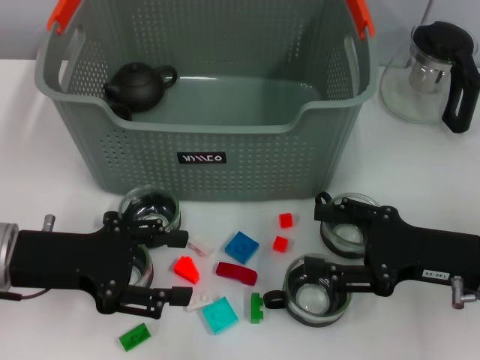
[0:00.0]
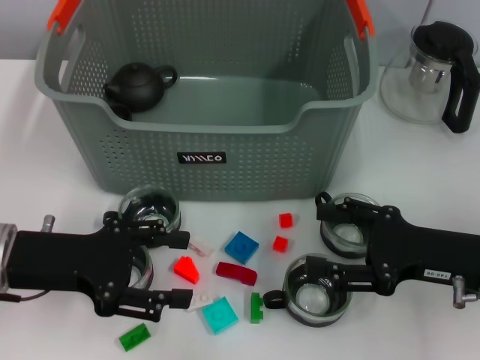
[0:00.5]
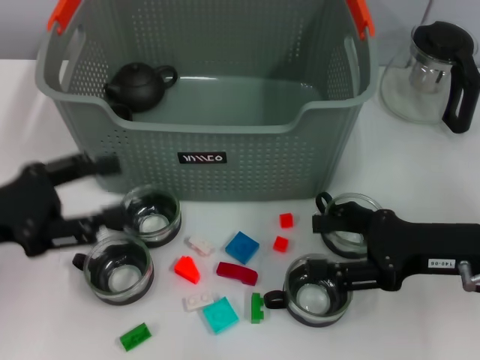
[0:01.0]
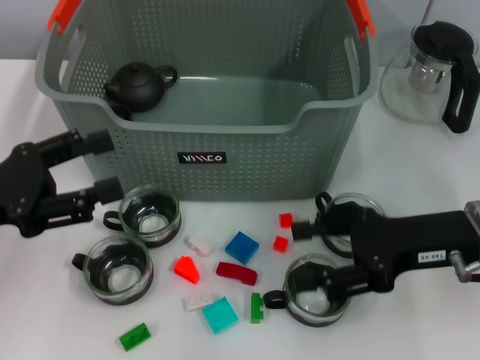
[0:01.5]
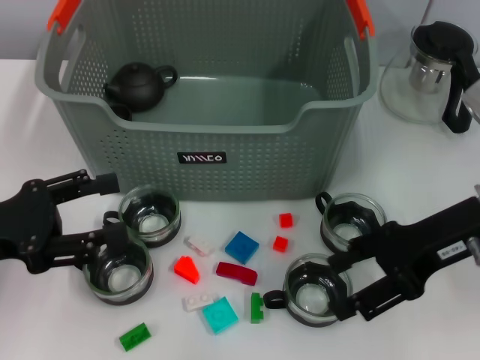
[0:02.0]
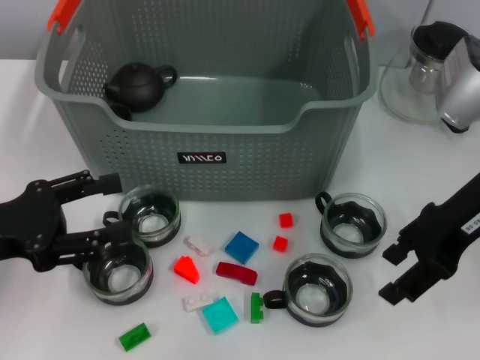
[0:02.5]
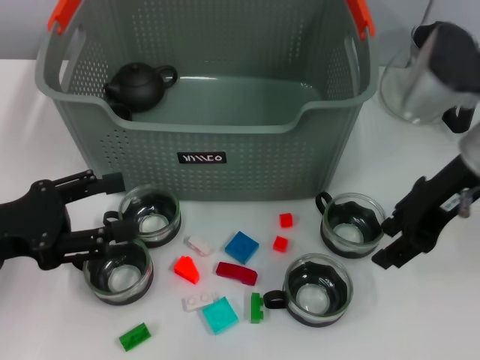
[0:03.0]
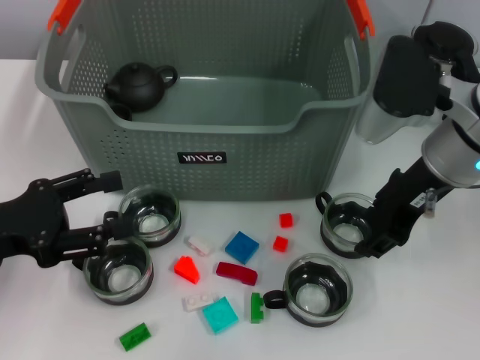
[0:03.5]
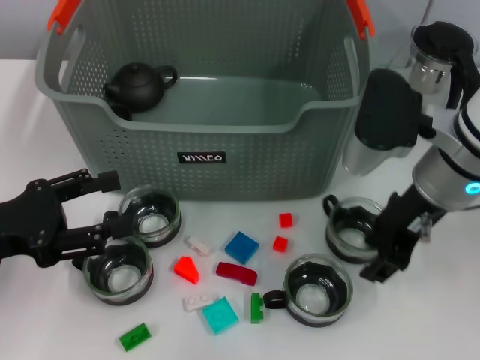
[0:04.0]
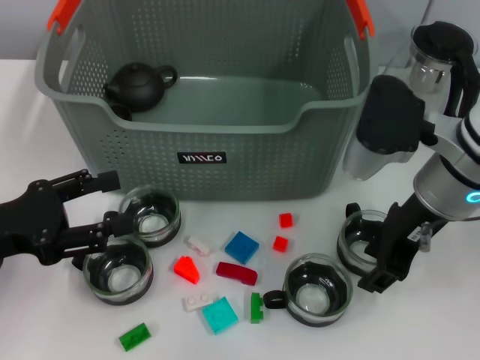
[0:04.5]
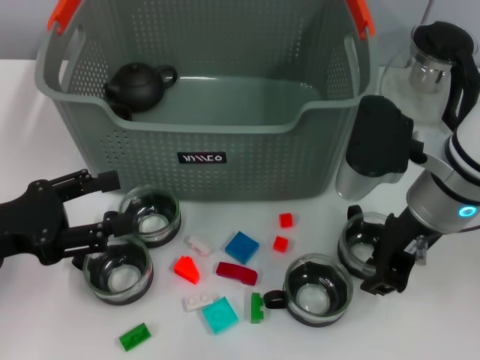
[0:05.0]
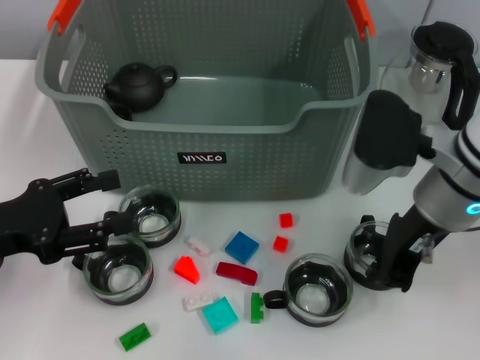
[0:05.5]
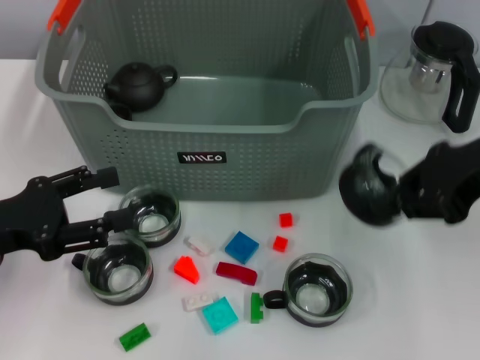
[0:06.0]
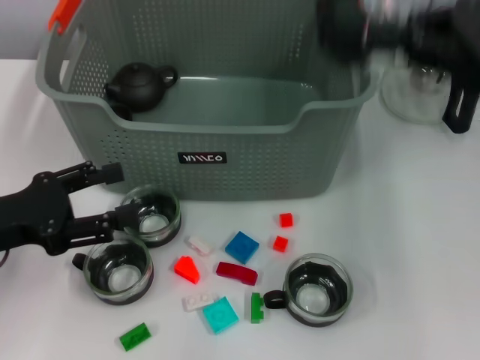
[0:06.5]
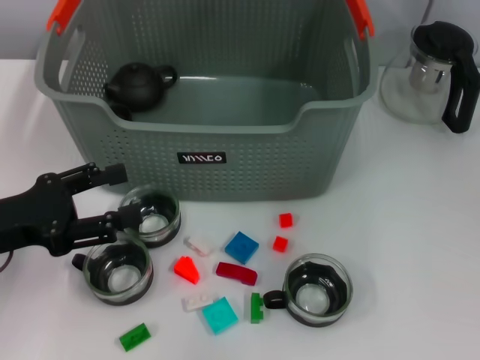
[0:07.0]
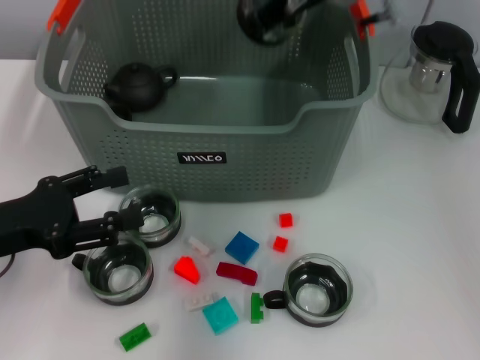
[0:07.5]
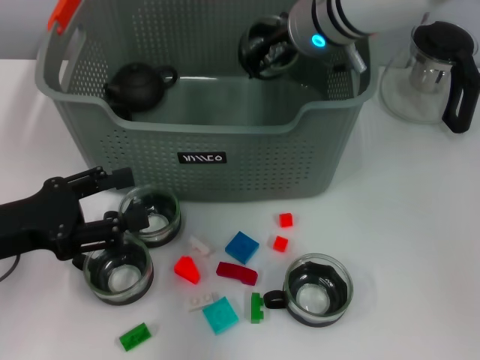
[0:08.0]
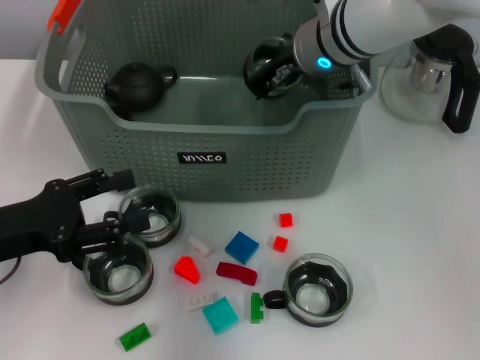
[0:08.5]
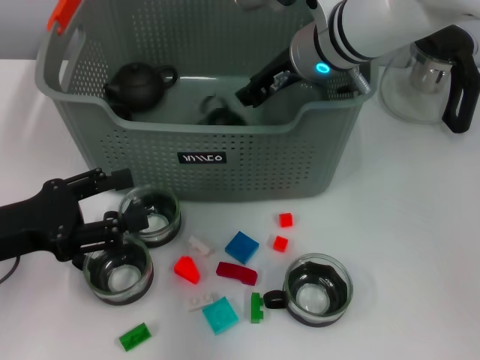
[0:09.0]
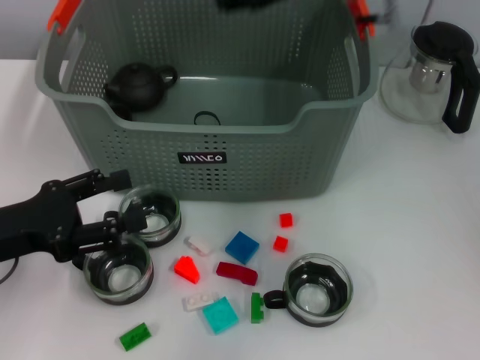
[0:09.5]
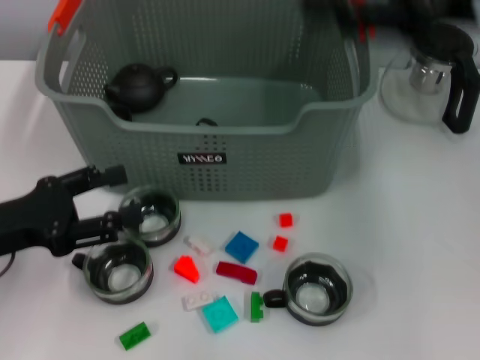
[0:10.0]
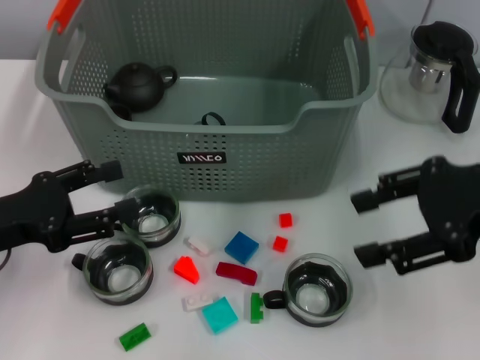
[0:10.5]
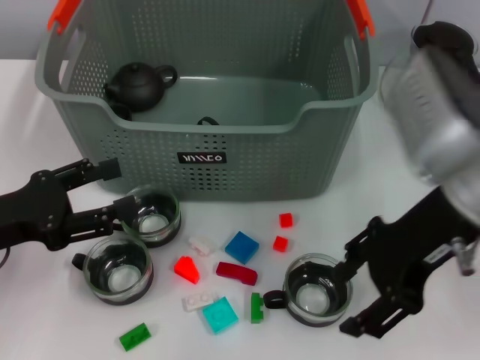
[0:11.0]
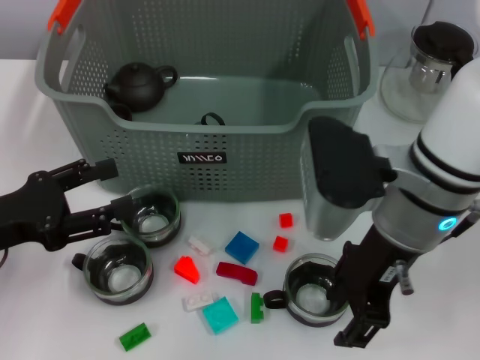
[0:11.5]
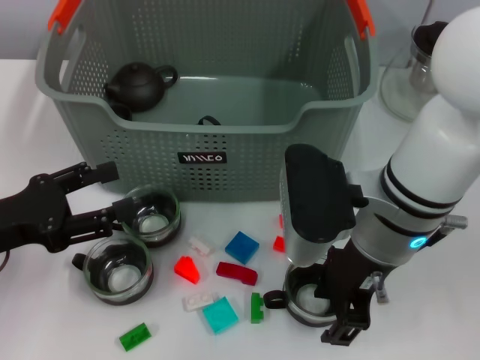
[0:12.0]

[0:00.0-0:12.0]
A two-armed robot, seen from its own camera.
Task of the whole recording: pick up the teacup on the table and place it into the storage bin, pick up the block on the table and place it into the storage bin.
Step, 0:00.0 to 0:05.0: Grasp the cup with right gripper.
Step, 0:05.5 to 0:09.0: Place the cup in the storage box with right gripper.
0:00.0 to 0:02.0: The left gripper heads to the left, covering some 5 cm. Meanwhile the right gripper travels upward by about 10 cm.
0:02.0 to 0:04.0: The right gripper is displaced to the left by roughly 5 cm.
0:04.0 to 0:06.0: The right gripper heads to the right and upward, covering roughly 10 cm, and closes.
0:06.0 to 0:08.0: The right gripper is displaced to the left and forward by about 20 cm.
0:08.0 to 0:10.0: The right gripper goes roughly 20 cm to the right, backward and upward, and opens its fingers.
0:10.0 to 0:12.0: The right gripper shifts some 20 cm downward and to the left.

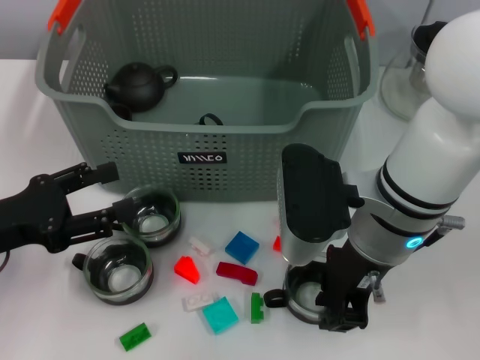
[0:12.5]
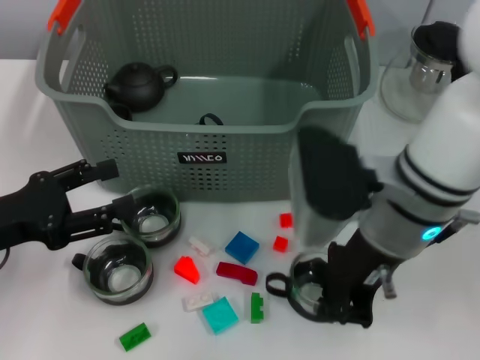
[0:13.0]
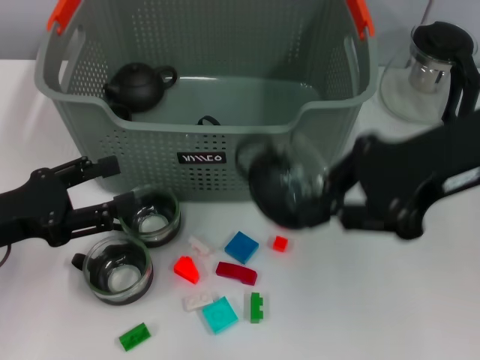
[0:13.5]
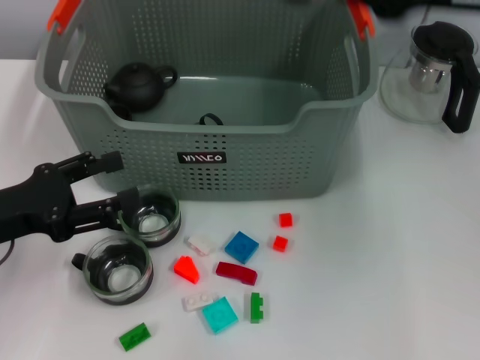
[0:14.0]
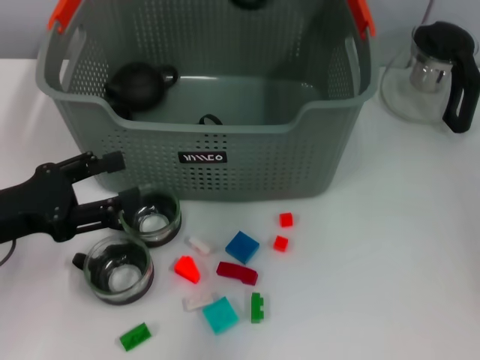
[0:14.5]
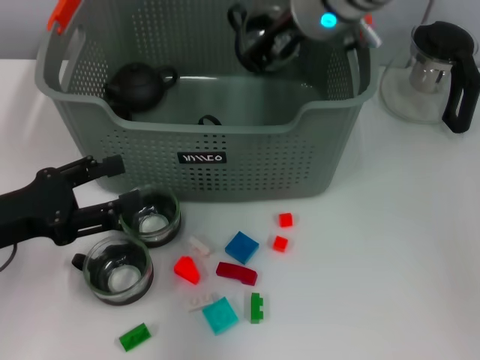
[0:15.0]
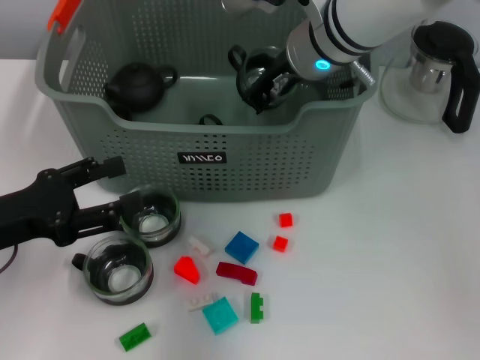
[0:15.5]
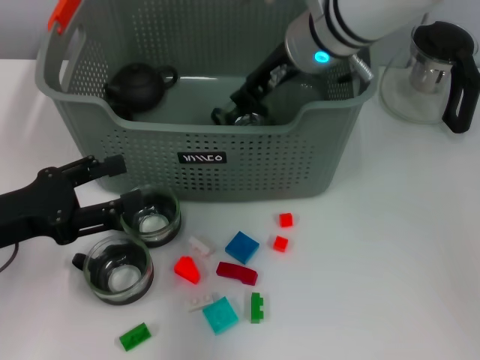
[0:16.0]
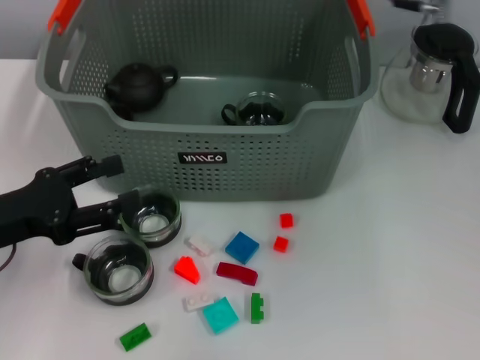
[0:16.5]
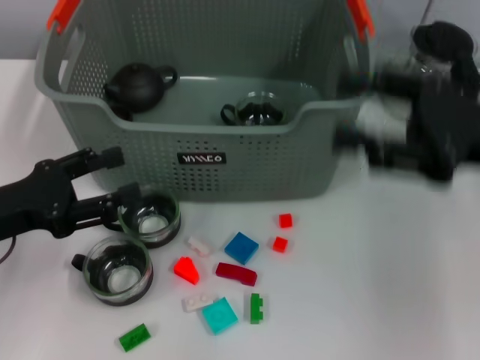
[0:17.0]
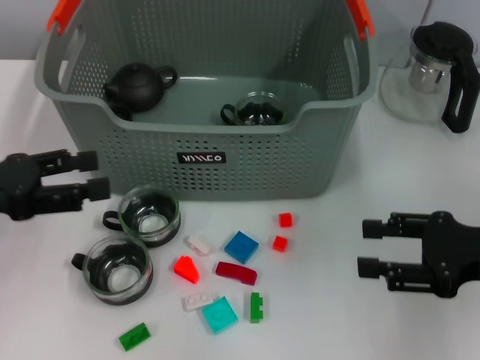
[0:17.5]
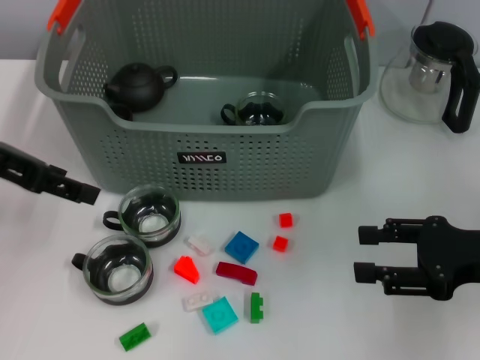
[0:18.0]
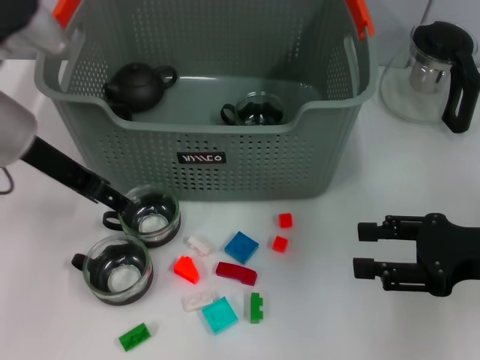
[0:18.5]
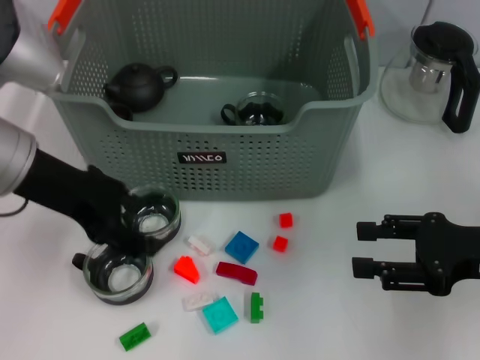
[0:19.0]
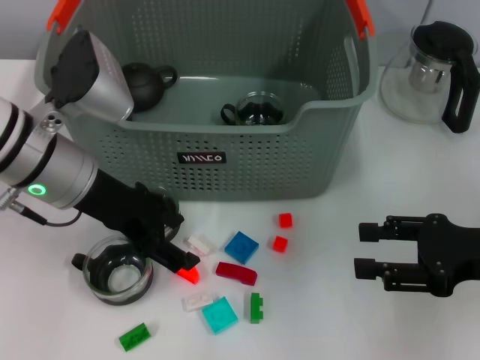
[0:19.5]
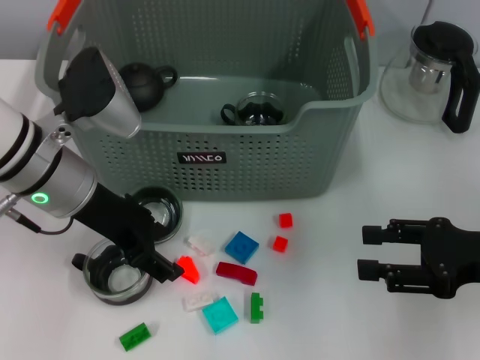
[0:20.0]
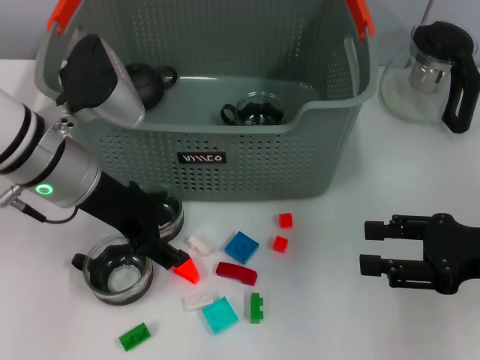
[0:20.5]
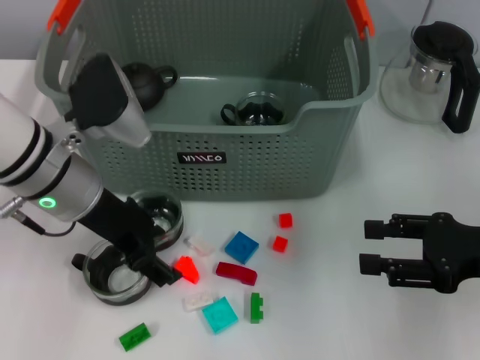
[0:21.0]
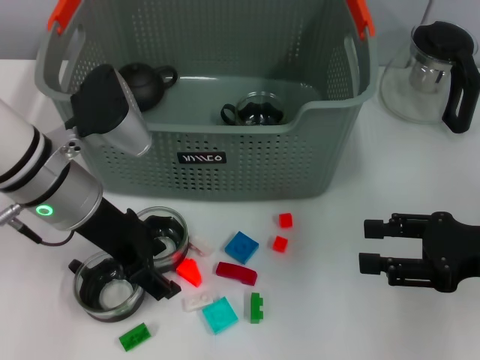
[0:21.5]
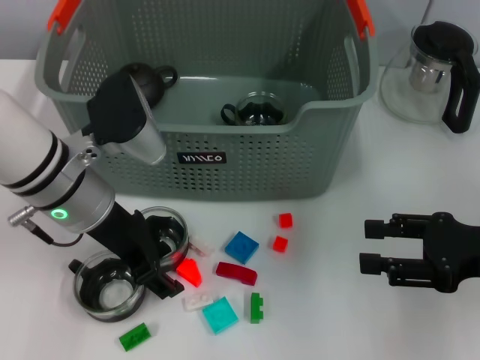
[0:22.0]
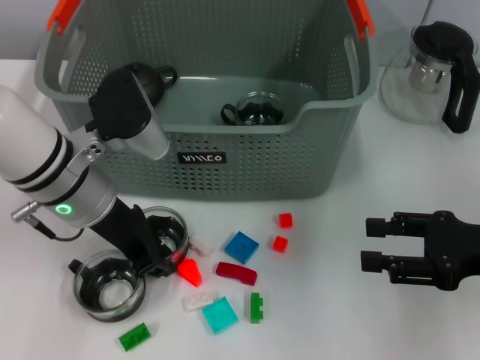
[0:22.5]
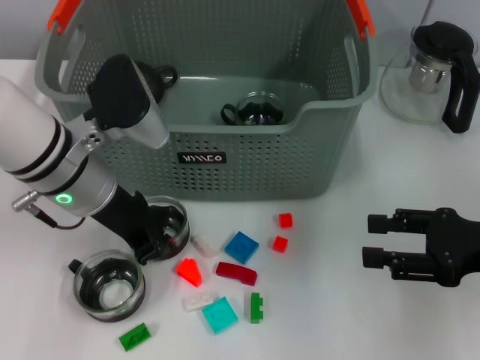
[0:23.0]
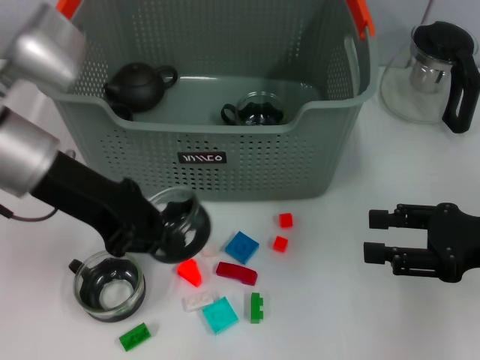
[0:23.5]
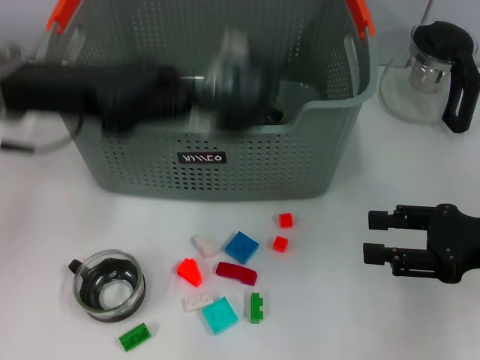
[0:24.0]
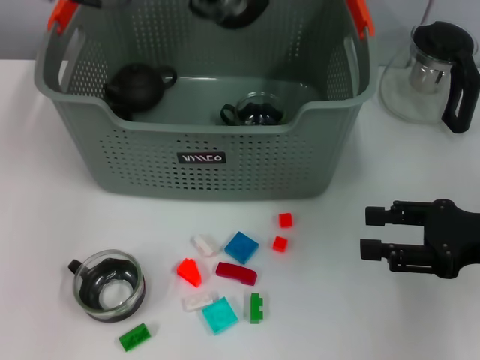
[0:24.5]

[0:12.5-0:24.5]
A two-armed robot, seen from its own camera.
Task of the whole recording: pick up the teacup on the table and place it into the storage bin, pick up the block on the table and place it into the storage bin.
Step, 0:13.0 to 0:15.5: Place the cup in the storage box with right gripper.
Step, 0:16.0 to 0:22.5: Grasp the cup with left gripper.
0:12.5 to 0:14.5: The right gripper is displaced upward and forward by about 20 cm, and closes its fingers.
0:14.5 to 0:16.5: The right gripper travels to the right by roughly 5 cm, reaches some 10 cm downward, then returns, and opens its fingers.
0:16.5 to 0:18.5: The right gripper is displaced downward, backward and to the right by roughly 25 cm. Meanwhile the left gripper moves forward, upward and to the right, approximately 15 cm.
0:18.5 to 0:20.5: The left gripper changes place by approximately 5 cm.
0:20.5 to 0:22.5: The left gripper closes its fingers.
0:22.5 to 0:24.5: The left gripper moves upward and forward, about 20 cm, and closes.

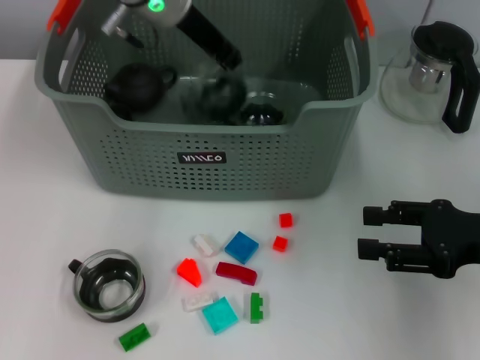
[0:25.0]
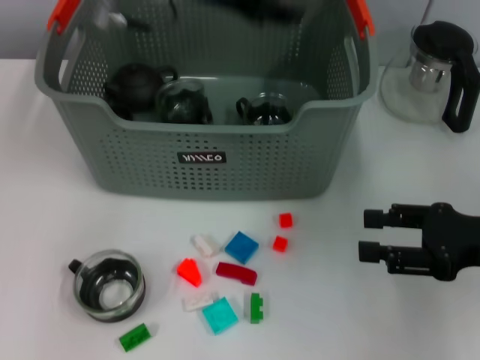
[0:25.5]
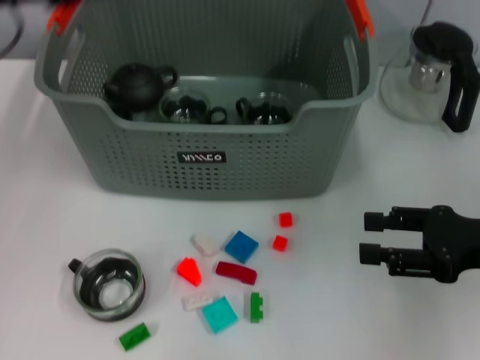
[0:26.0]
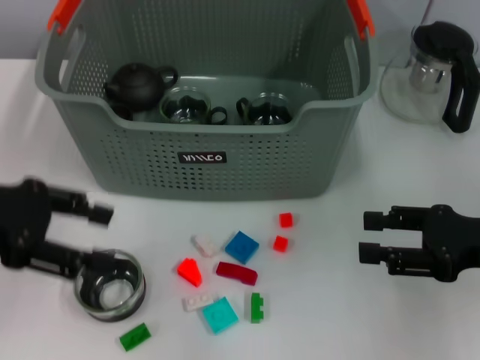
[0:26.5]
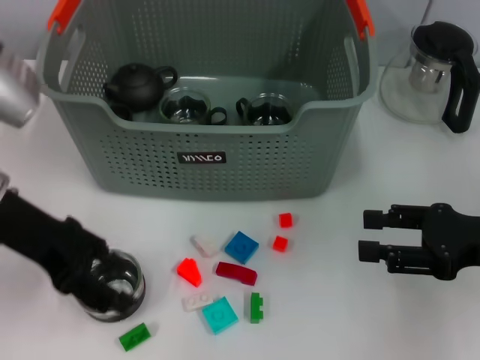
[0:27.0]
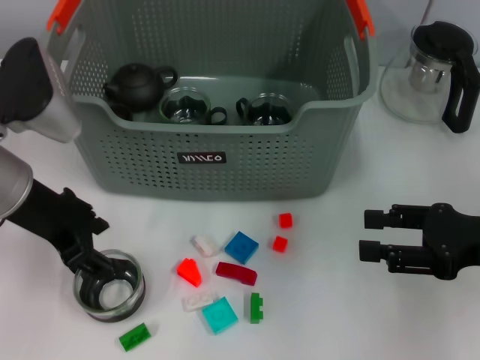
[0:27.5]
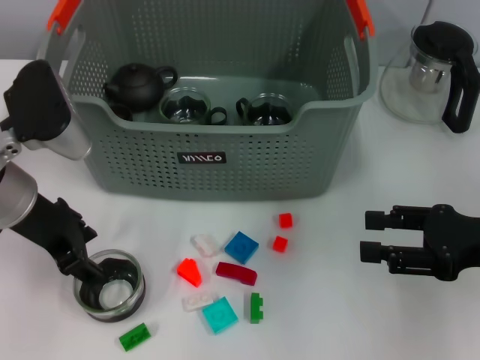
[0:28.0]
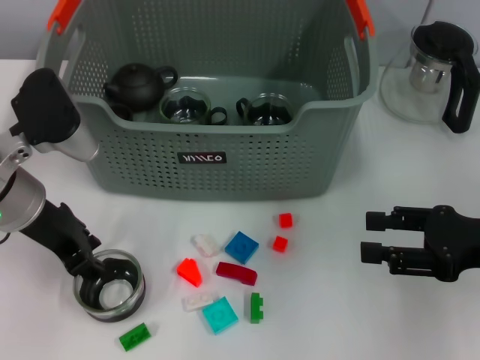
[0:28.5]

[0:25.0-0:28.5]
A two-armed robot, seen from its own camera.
Task of the whole recording: pick up the teacup on the table and place it into the storage bin, pick up the block on the table and place it into the storage bin.
0:25.0 to 0:27.0: The left gripper heads backward and to the left, covering some 20 cm, and opens its fingers.
0:27.0 to 0:28.5: The left gripper shifts by about 5 cm.
